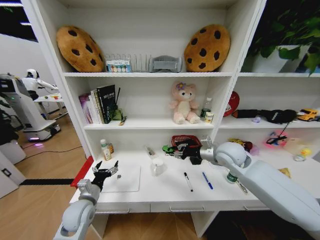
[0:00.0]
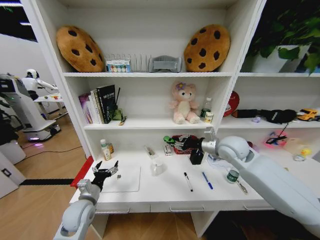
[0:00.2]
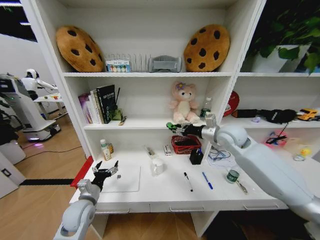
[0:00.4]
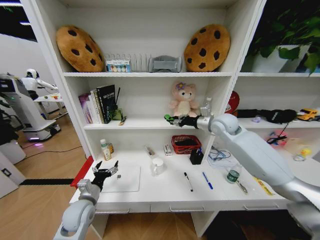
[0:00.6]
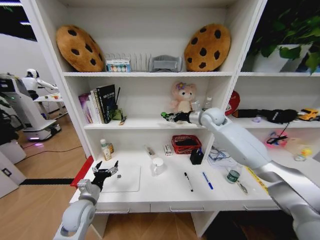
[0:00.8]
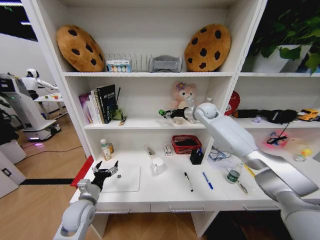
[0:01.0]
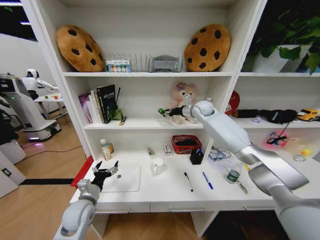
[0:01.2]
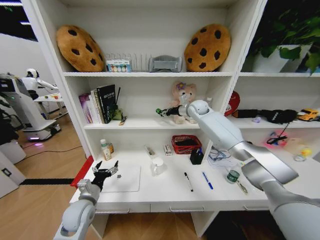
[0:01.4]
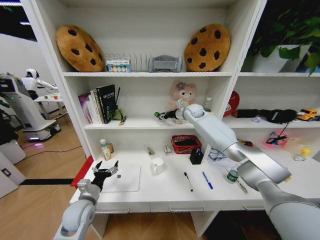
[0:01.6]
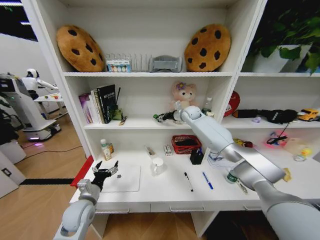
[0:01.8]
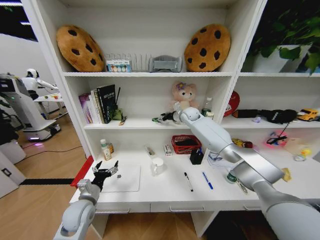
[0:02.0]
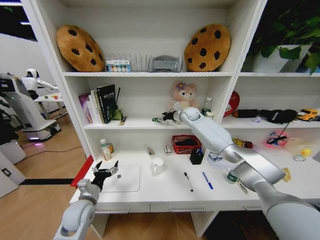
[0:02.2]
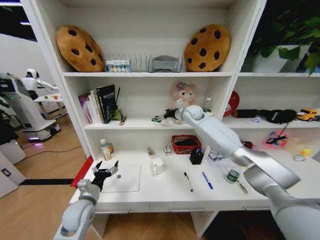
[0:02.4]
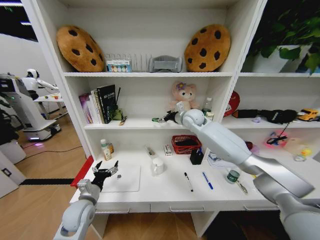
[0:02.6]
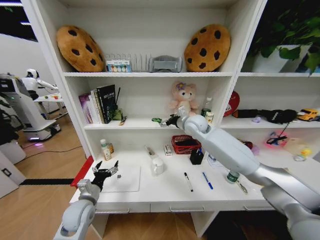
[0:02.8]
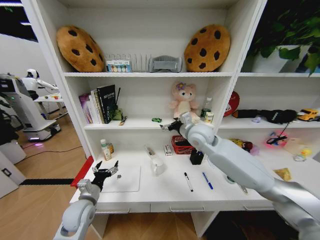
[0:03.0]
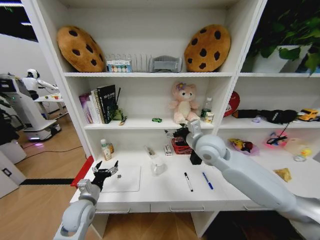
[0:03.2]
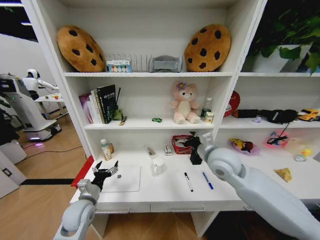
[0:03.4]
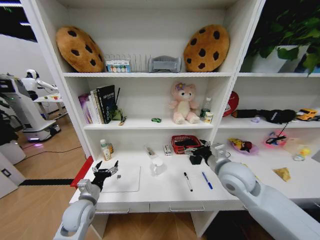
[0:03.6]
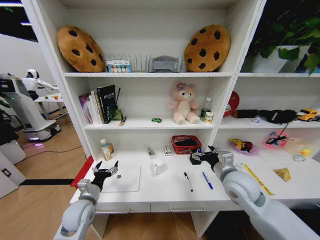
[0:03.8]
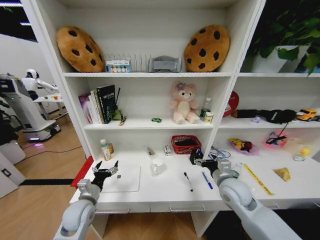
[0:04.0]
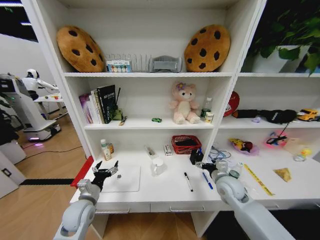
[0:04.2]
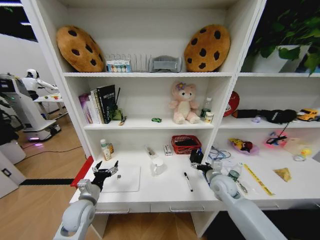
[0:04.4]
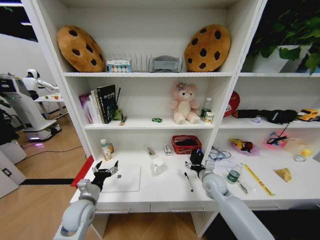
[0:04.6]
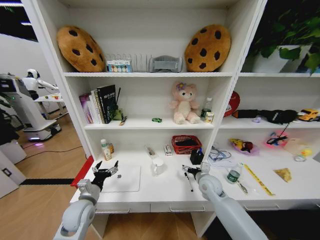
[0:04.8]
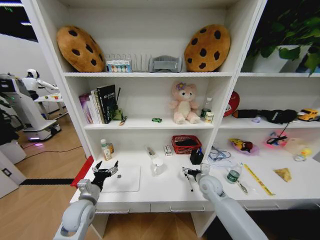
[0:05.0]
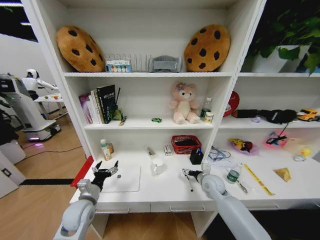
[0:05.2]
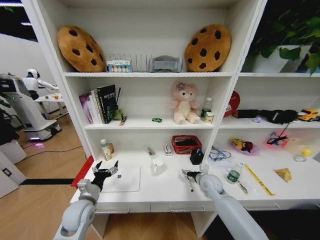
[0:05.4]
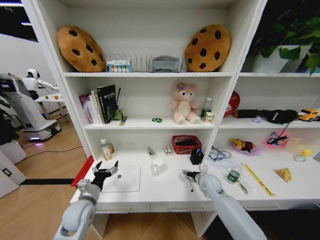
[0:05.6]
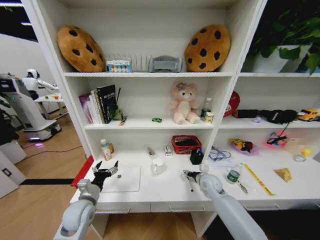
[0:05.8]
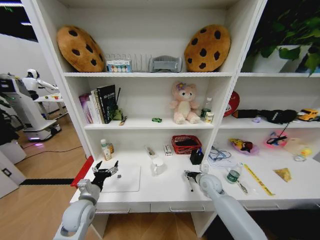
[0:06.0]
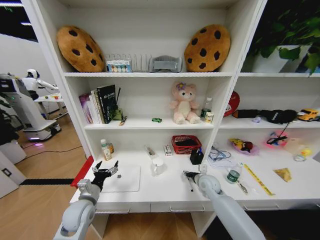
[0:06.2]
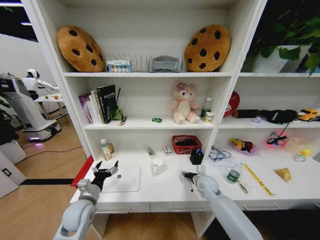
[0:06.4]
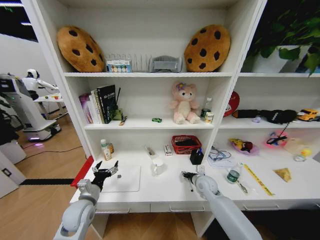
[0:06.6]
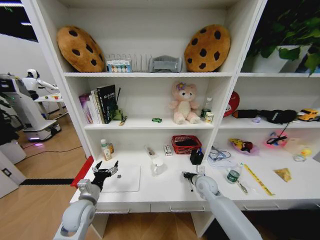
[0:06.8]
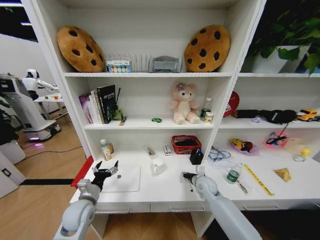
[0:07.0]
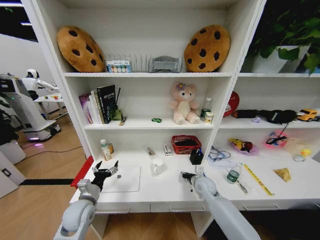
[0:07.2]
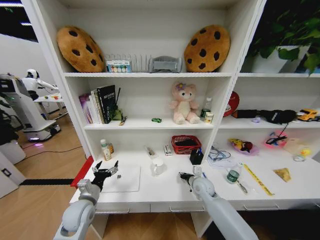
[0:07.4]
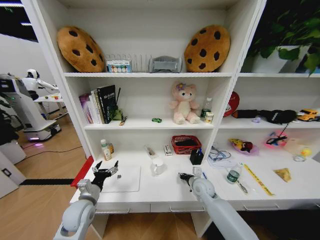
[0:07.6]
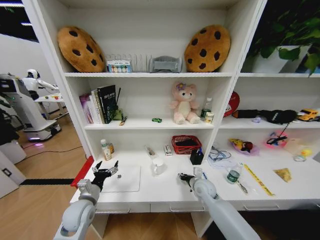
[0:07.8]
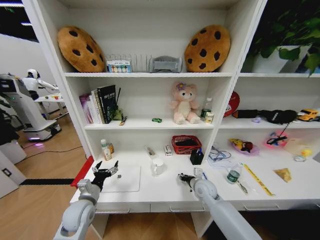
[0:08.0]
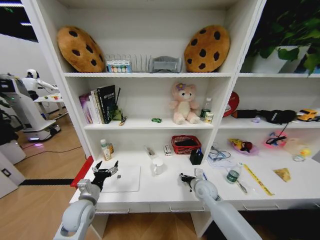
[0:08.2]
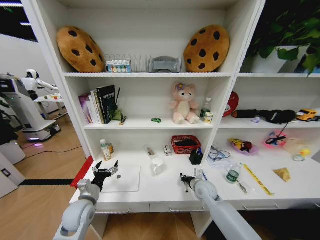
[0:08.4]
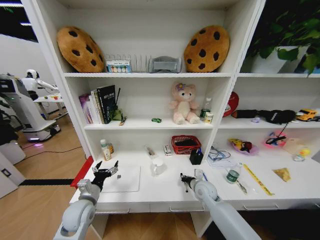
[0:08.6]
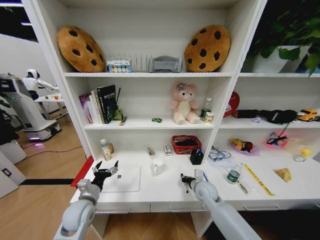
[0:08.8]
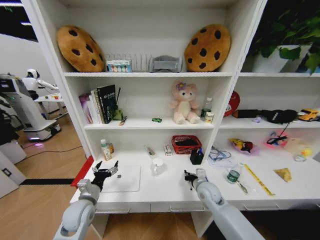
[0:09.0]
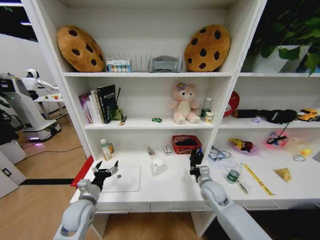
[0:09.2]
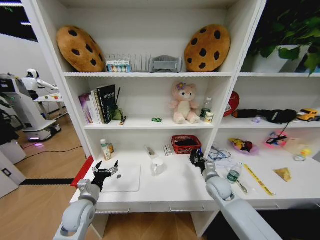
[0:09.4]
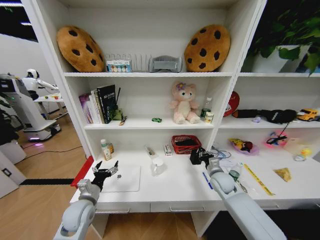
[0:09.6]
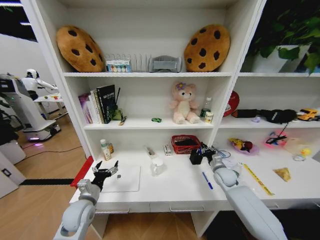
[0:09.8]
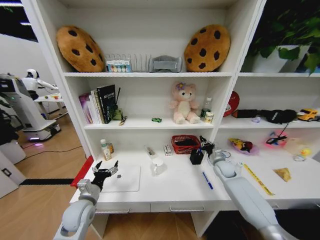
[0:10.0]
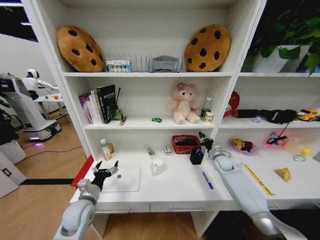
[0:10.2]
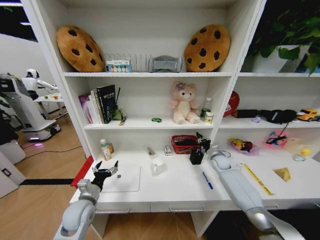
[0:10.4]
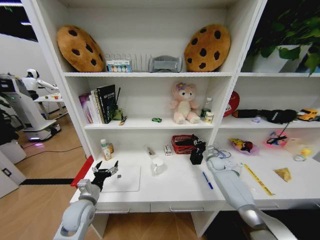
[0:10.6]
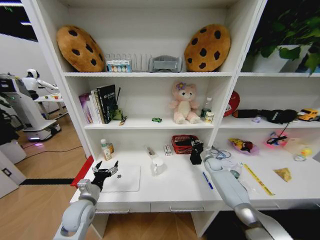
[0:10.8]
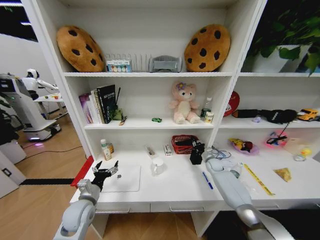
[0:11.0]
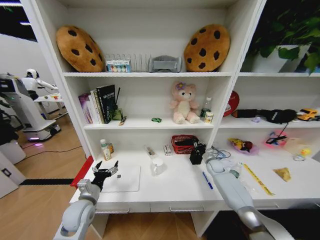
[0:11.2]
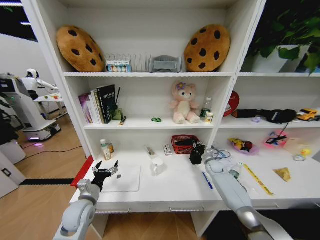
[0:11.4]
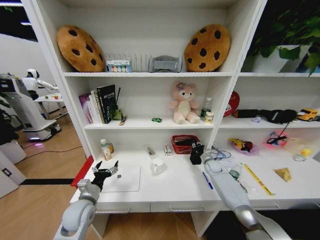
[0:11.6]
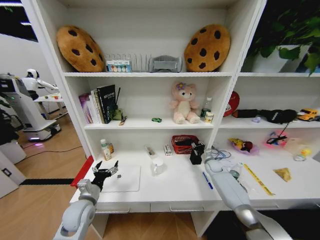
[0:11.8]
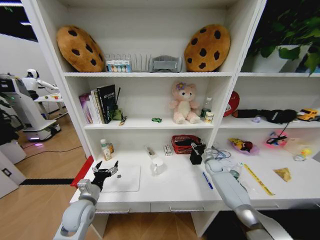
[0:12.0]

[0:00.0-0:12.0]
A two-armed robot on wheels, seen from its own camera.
Task of the whole recording: Organize the objects on the table.
0:00.0 to 0:01.6: The right gripper shifts approximately 25 cm forward.
0:01.6 to 0:03.0: The right gripper moves backward, some 20 cm, and opens up.
0:03.0 to 0:04.4: The right gripper moves downward and to the right, roughly 25 cm.
0:04.4 to 0:06.0: The right gripper moves roughly 5 cm, and closes up.
0:06.0 to 0:09.0: There are only small adjustments of the grippers.
0:09.0 to 0:10.4: The right gripper moves forward and to the right, roughly 25 cm.
0:10.4 to 0:12.0: The right gripper is displaced downward by about 5 cm, and opens up.

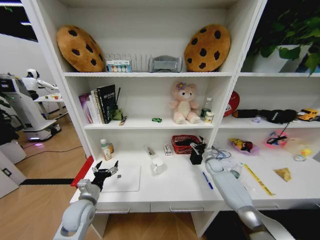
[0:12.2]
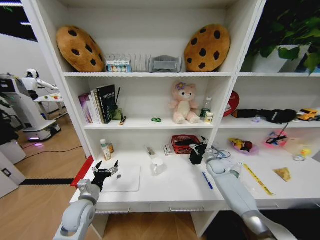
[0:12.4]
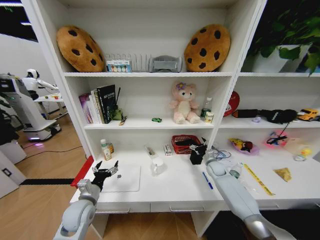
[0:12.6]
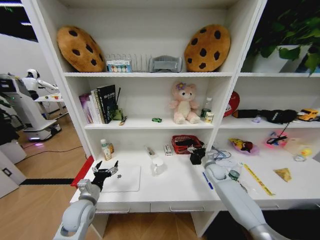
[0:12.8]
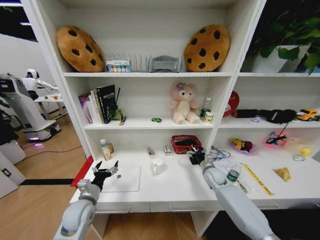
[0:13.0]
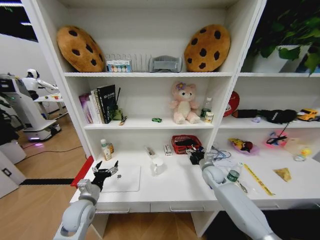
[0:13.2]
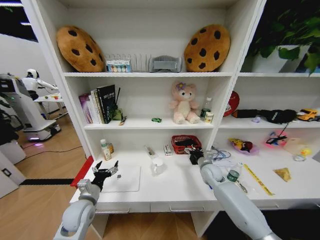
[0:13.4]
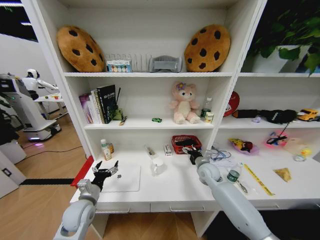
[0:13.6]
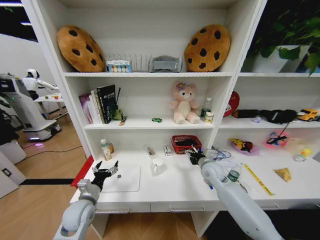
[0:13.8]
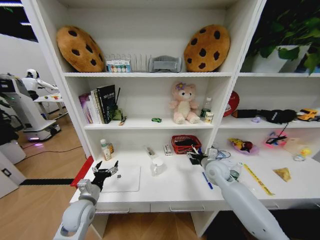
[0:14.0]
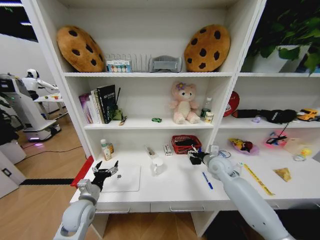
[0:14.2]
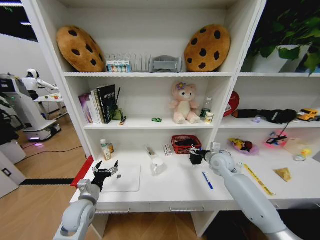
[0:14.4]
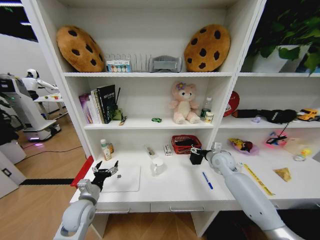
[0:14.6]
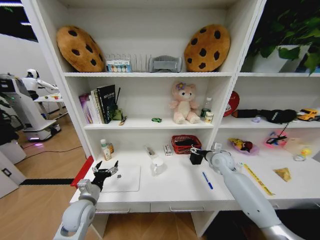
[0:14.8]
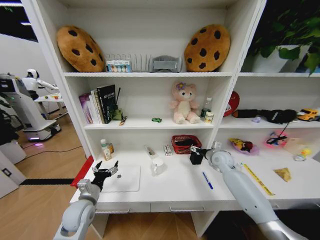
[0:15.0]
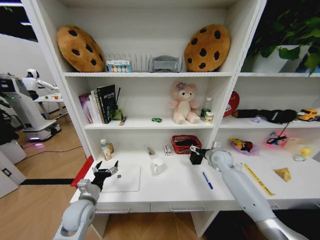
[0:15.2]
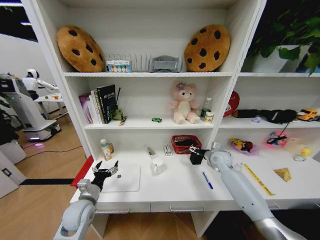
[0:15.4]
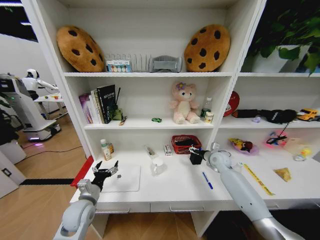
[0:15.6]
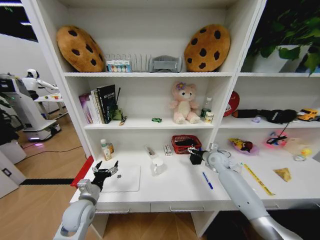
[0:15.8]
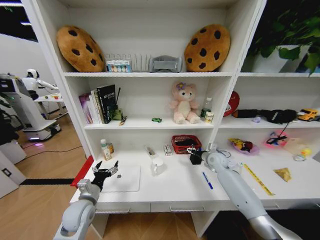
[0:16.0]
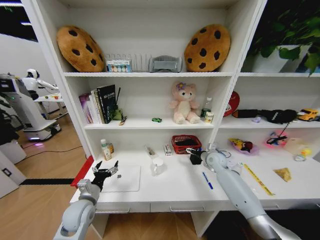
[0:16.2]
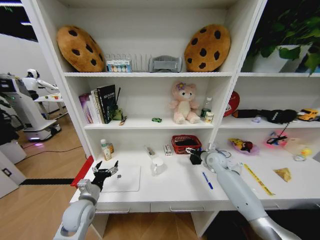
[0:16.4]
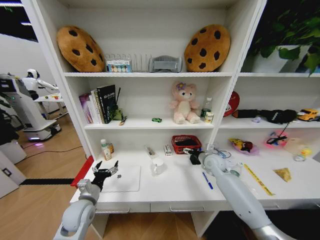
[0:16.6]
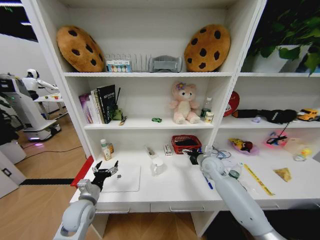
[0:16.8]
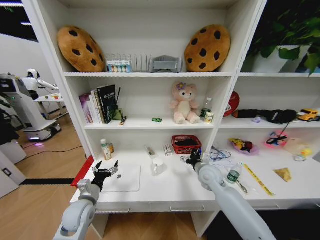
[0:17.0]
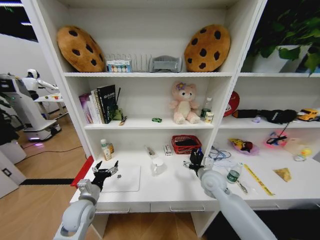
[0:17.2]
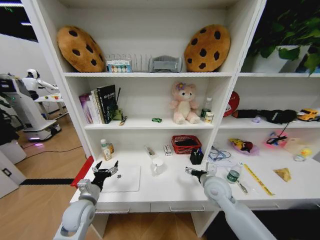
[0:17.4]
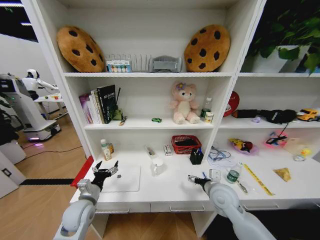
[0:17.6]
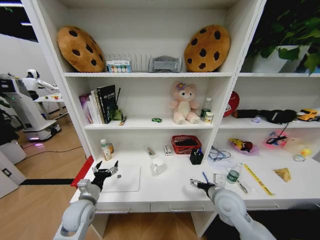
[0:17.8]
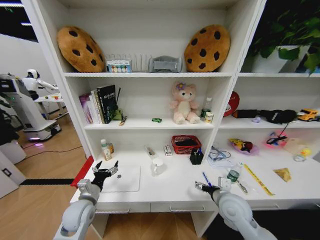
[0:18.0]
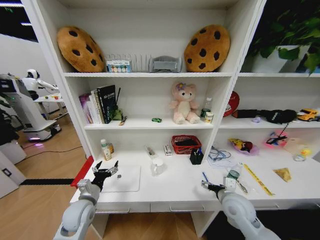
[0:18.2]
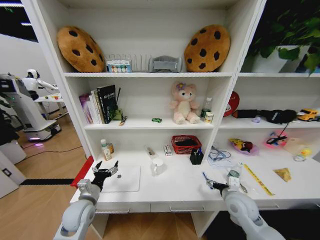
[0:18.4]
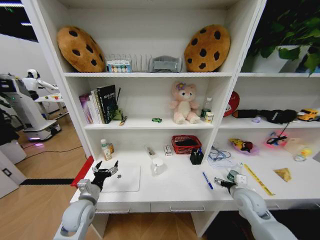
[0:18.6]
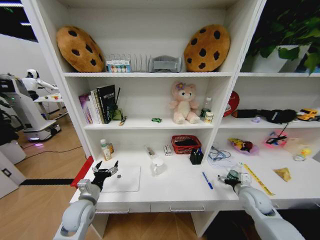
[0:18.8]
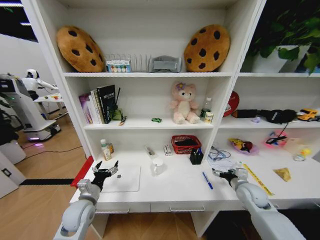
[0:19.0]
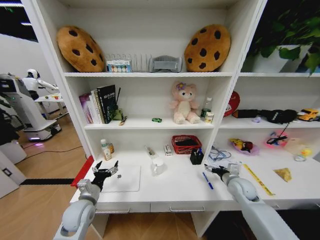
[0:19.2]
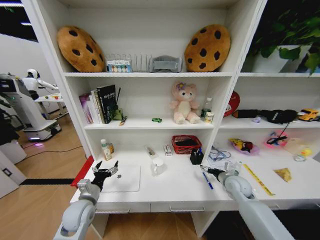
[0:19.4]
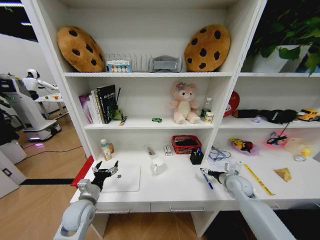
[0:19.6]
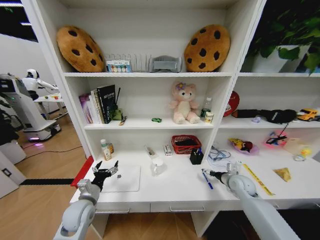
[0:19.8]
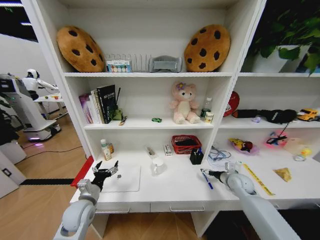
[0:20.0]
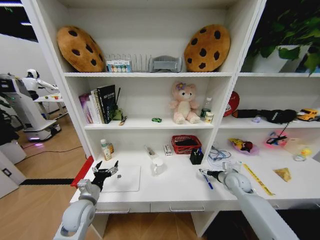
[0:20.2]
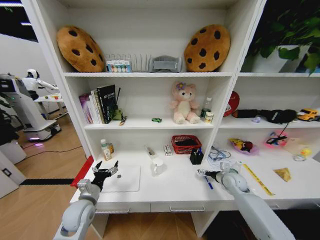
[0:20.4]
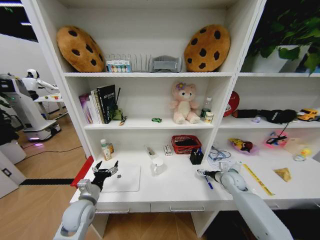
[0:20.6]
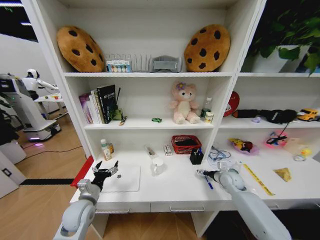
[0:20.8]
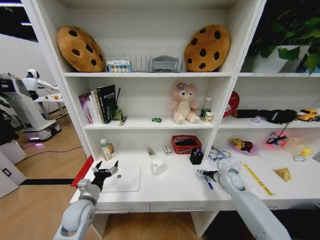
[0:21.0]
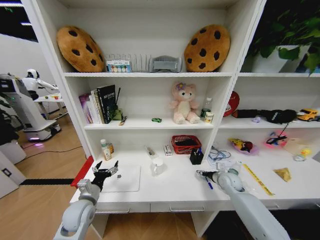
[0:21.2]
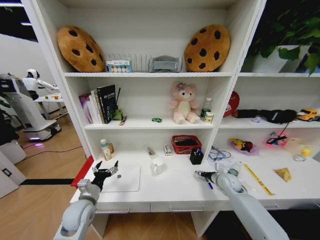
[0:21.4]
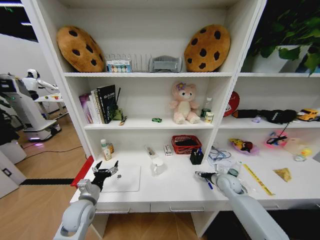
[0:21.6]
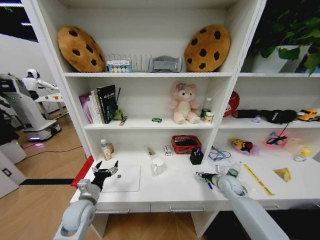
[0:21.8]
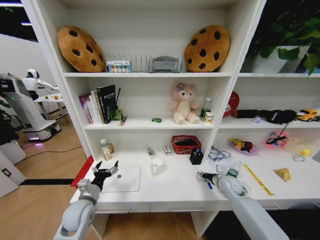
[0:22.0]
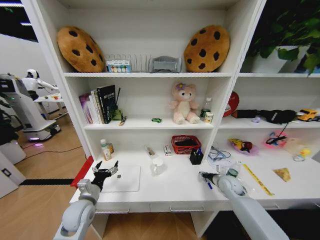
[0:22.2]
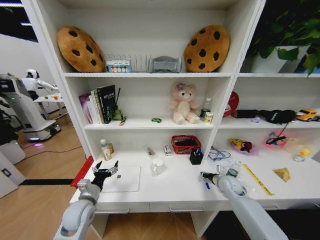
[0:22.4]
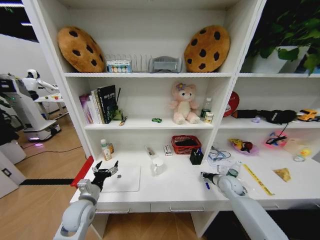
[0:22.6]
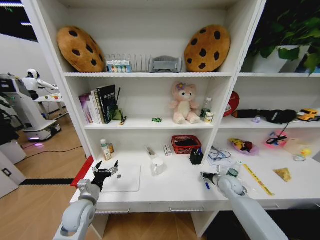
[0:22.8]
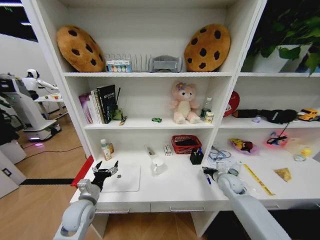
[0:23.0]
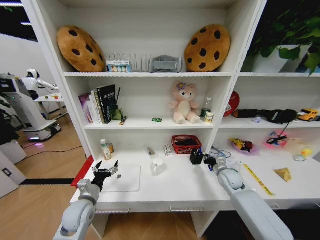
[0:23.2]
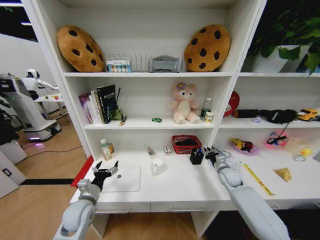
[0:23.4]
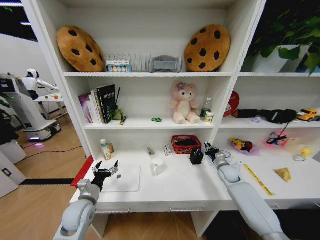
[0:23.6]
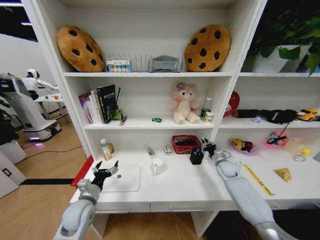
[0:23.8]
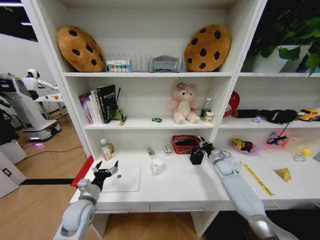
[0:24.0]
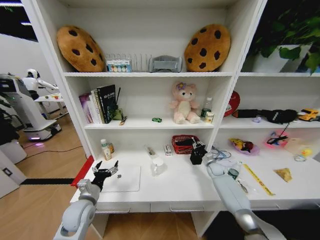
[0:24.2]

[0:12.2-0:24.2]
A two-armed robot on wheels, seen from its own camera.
Task of the whole recording: Organize the objects on the table.
0:12.2 to 0:13.8: The right gripper is displaced to the left, backward and upward by about 20 cm.
0:13.8 to 0:15.2: The right gripper goes roughly 10 cm to the right and forward.
0:15.2 to 0:16.6: The grippers stay close to where they were, moving slightly.
0:16.6 to 0:18.2: The right gripper moves backward, roughly 20 cm.
0:18.2 to 0:19.8: The right gripper moves to the right and forward, some 15 cm.
0:19.8 to 0:21.2: There are only small adjustments of the grippers.
0:21.2 to 0:22.6: The right gripper closes.
0:22.6 to 0:24.2: The right gripper goes about 10 cm forward.
